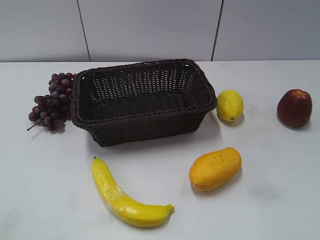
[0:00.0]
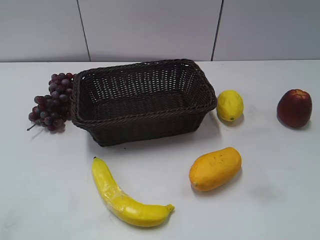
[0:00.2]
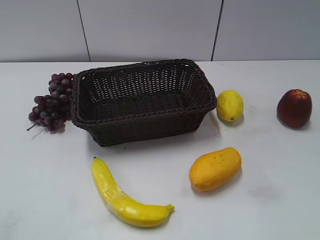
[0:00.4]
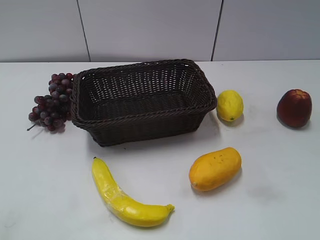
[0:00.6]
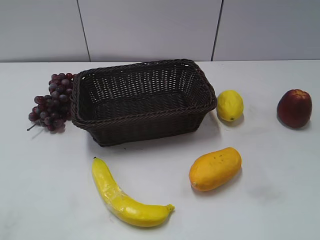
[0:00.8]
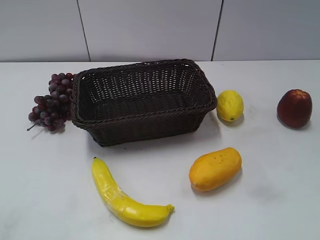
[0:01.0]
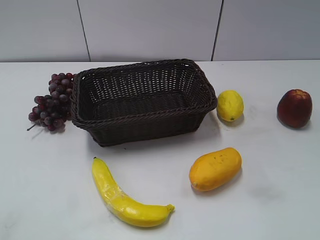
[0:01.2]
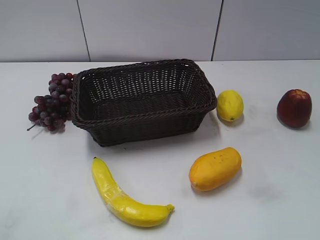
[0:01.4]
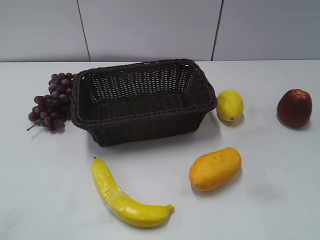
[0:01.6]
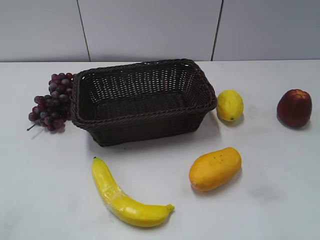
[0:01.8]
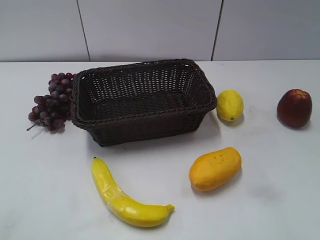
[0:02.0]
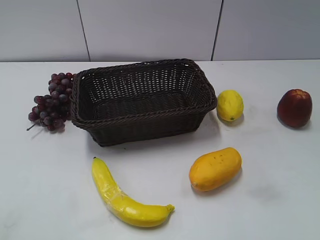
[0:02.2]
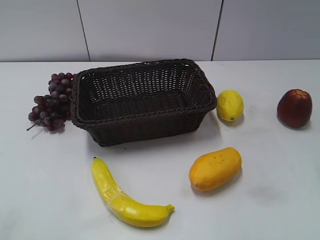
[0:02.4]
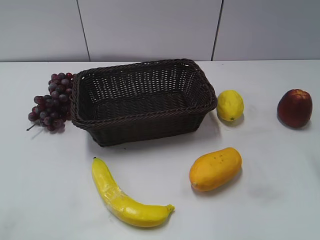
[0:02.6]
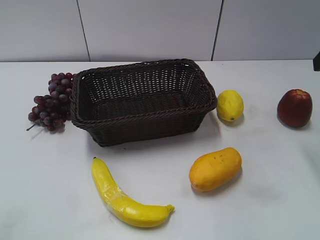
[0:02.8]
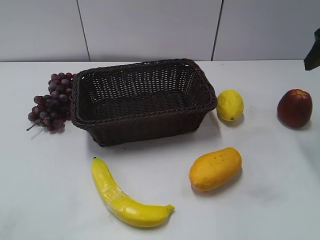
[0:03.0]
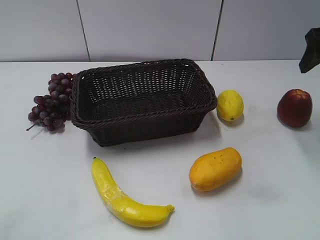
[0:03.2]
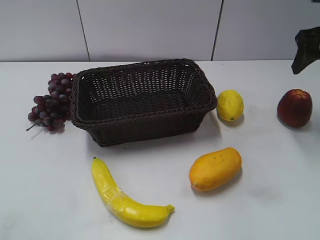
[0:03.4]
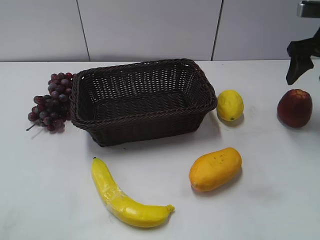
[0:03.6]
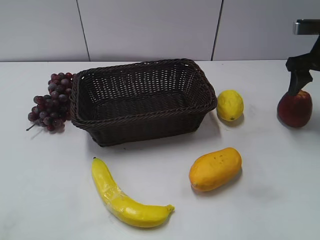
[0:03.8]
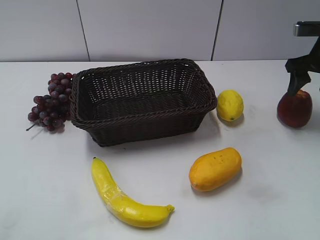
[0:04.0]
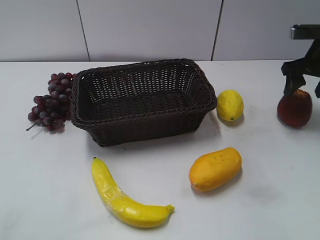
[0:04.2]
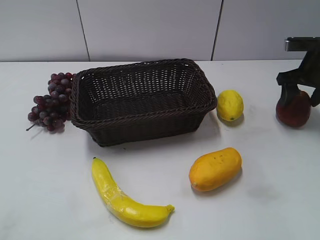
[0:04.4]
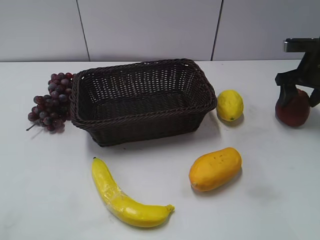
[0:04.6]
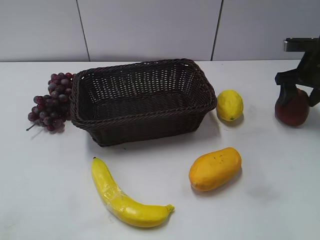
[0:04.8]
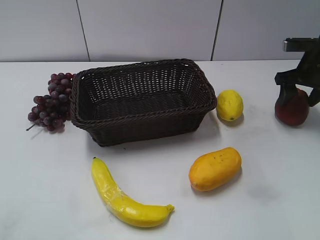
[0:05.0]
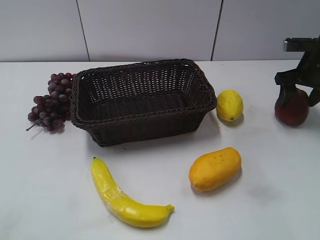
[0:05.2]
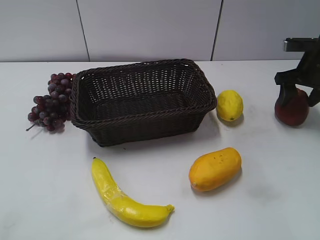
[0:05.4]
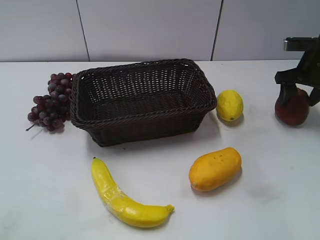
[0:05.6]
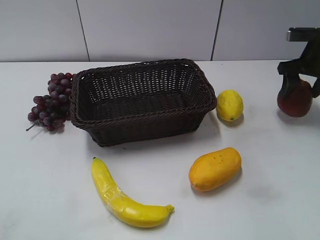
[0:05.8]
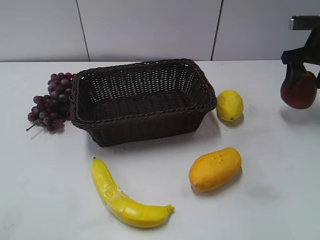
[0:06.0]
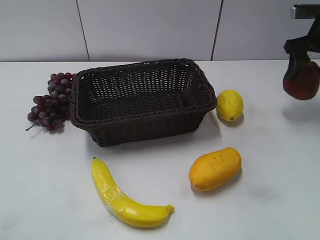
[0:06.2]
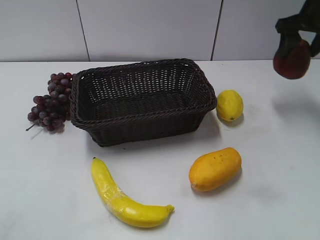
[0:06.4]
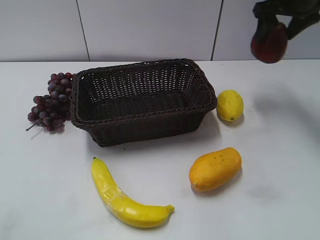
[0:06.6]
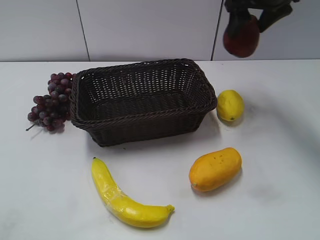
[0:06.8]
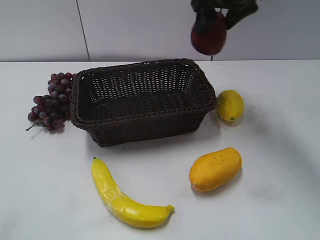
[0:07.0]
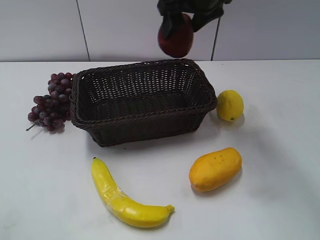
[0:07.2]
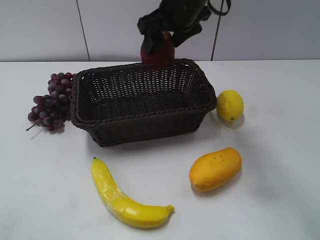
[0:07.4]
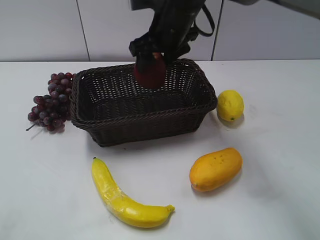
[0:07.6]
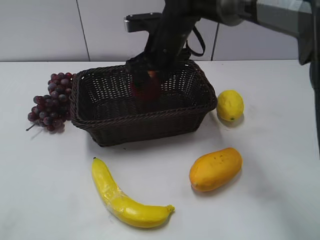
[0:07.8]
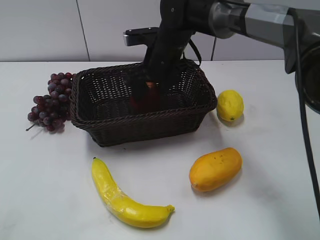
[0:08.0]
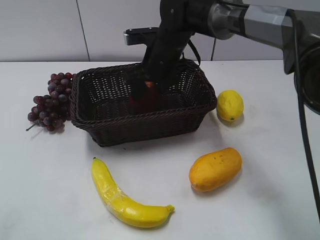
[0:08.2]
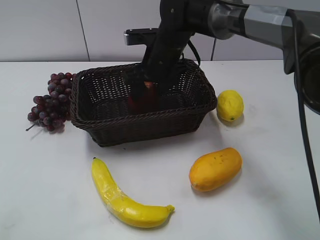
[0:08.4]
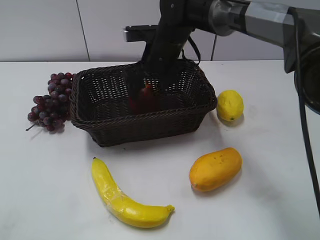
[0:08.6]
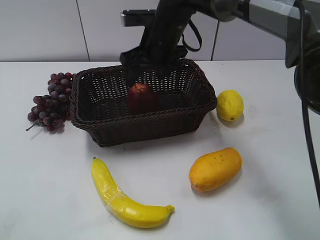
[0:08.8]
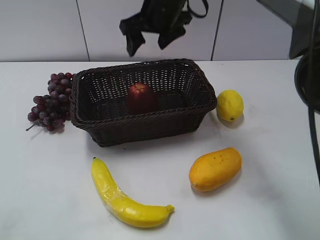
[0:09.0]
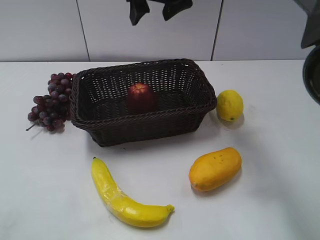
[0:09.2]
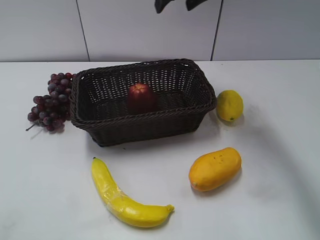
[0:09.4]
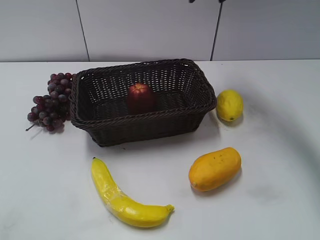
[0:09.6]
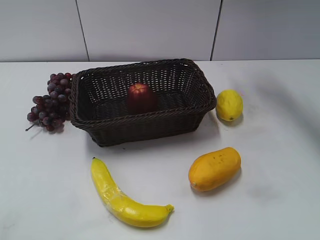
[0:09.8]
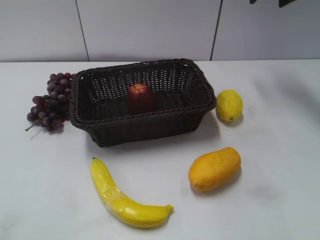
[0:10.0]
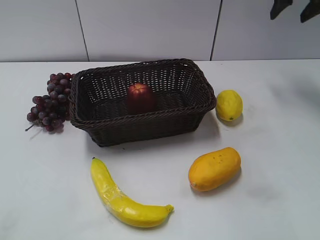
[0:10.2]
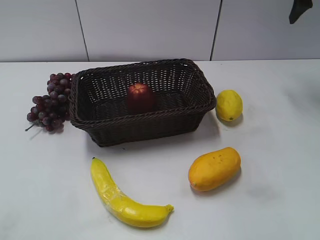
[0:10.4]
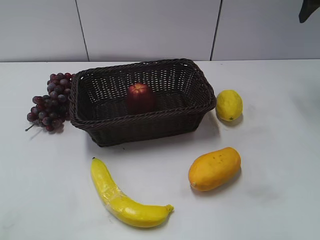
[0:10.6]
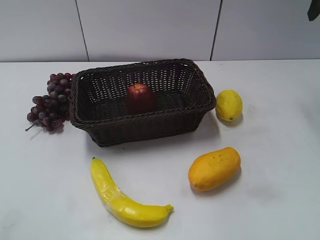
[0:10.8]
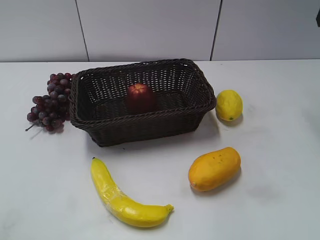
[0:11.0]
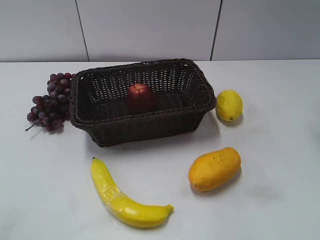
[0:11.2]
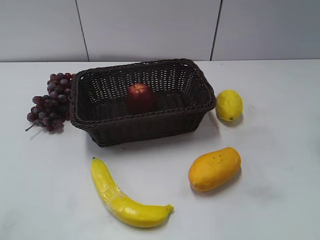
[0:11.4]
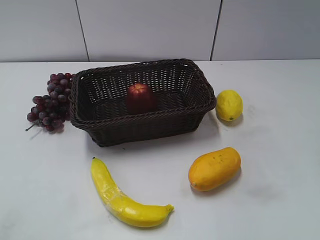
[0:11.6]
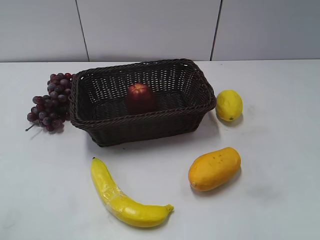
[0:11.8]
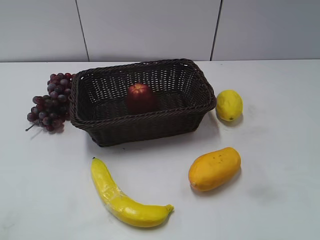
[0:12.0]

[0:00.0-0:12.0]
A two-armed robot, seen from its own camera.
Step, 0:02.8 to 0:04.8: Grasp the apple with right gripper.
Step, 0:05.0 to 0:08.4: Place the apple in the basket with right gripper.
0:01.6 to 0:03.0: The right gripper heads forward, covering roughly 30 cm, and opens its fingers.
0:03.0 to 0:04.4: The right gripper travels downward and forward by some 15 cm.
0:04.4 to 0:06.0: There are only small adjustments of the grippers.
0:06.0 to 0:07.6: The right gripper heads to the left, covering approximately 30 cm.
0:07.6 to 0:09.0: The right gripper opens its fingers.
0:09.0 to 0:10.4: The right gripper shifts approximately 30 cm to the right, and closes its fingers.
0:10.4 to 0:12.0: The right gripper goes some 25 cm backward.

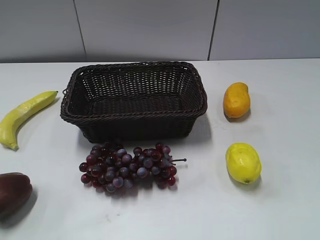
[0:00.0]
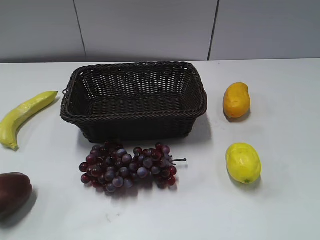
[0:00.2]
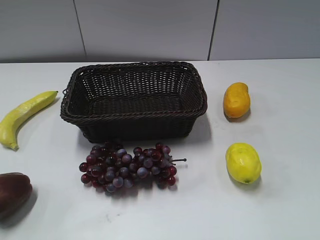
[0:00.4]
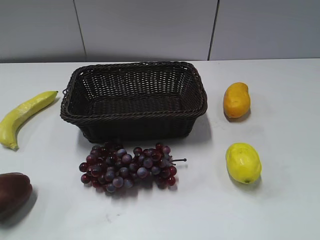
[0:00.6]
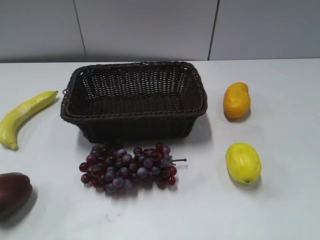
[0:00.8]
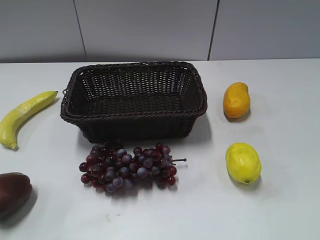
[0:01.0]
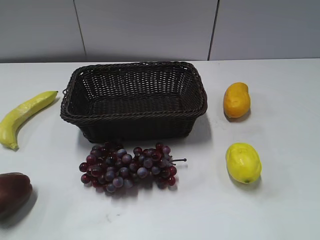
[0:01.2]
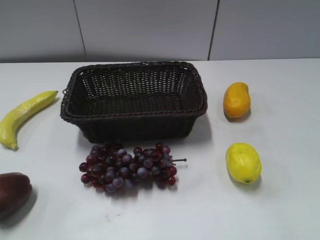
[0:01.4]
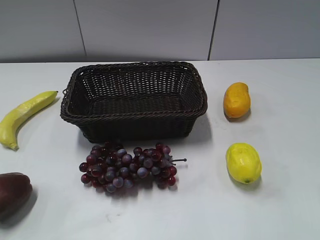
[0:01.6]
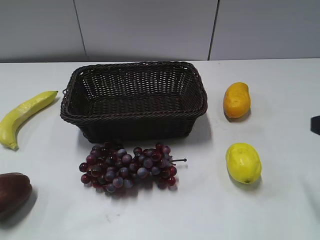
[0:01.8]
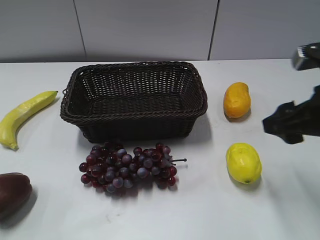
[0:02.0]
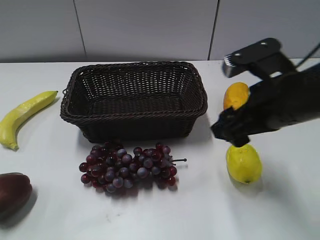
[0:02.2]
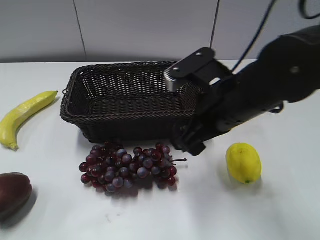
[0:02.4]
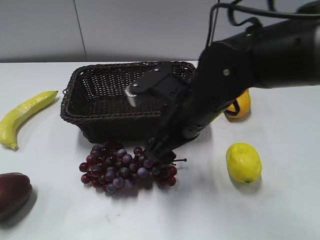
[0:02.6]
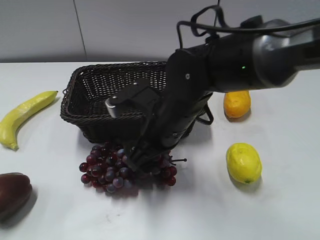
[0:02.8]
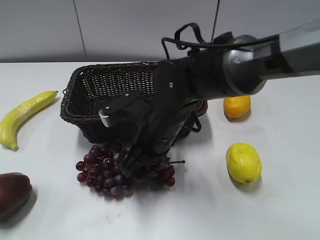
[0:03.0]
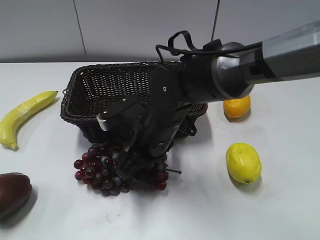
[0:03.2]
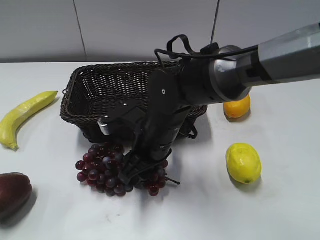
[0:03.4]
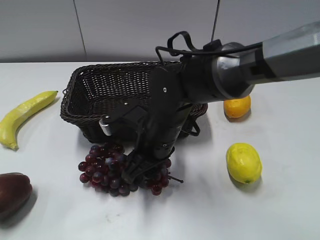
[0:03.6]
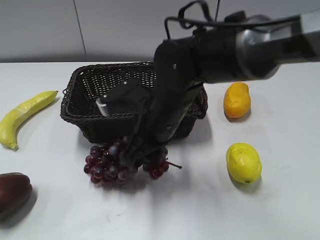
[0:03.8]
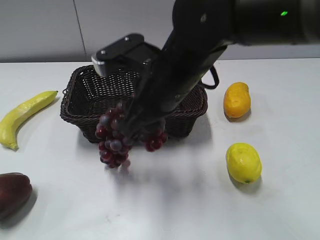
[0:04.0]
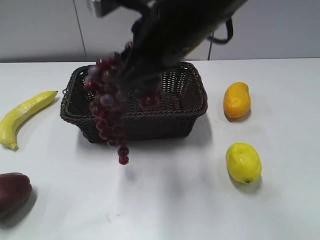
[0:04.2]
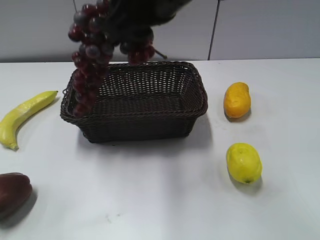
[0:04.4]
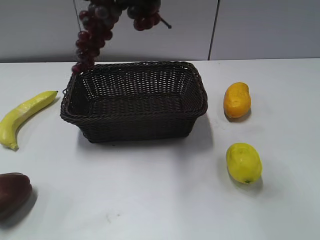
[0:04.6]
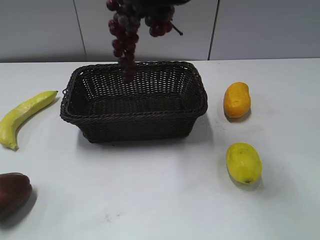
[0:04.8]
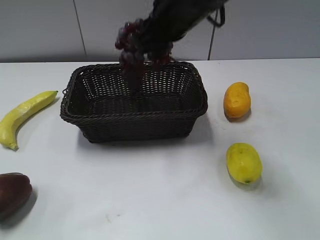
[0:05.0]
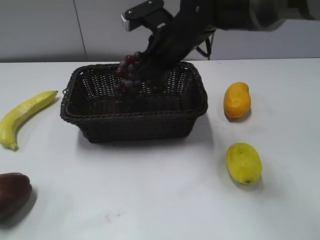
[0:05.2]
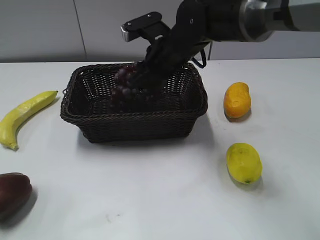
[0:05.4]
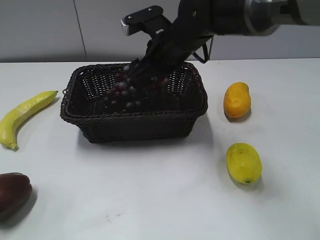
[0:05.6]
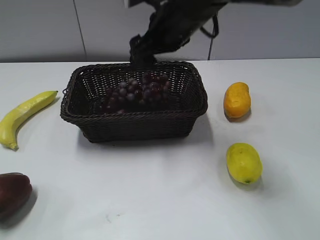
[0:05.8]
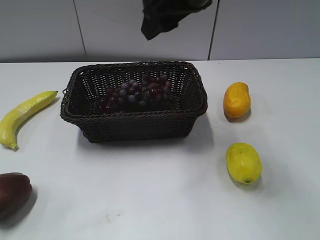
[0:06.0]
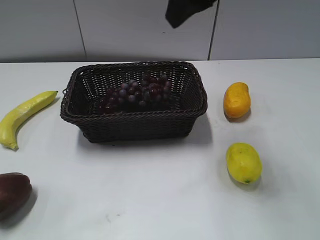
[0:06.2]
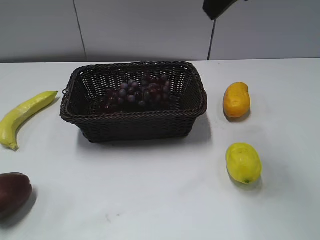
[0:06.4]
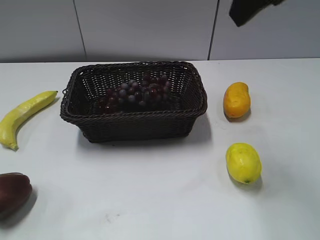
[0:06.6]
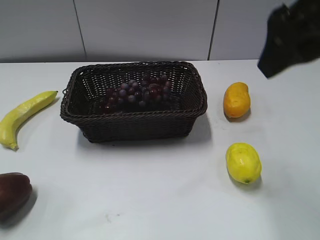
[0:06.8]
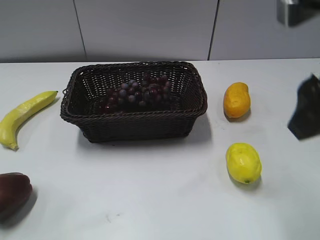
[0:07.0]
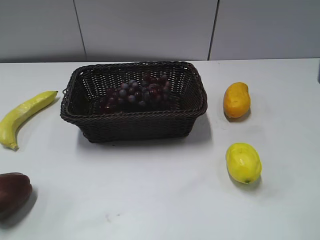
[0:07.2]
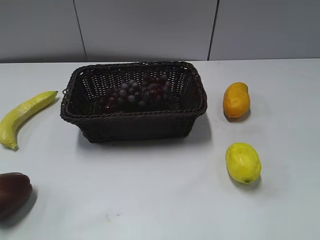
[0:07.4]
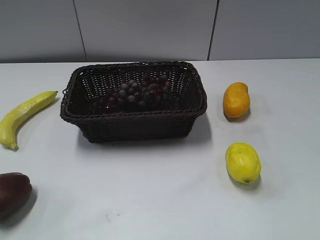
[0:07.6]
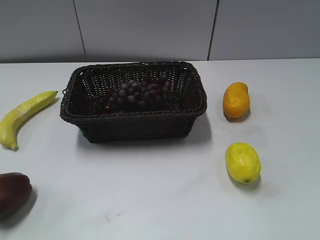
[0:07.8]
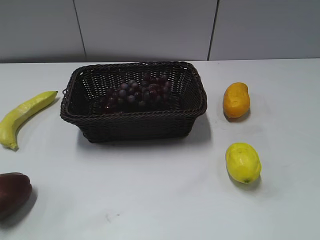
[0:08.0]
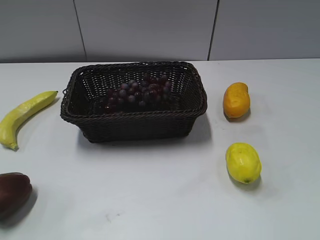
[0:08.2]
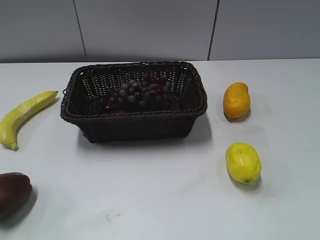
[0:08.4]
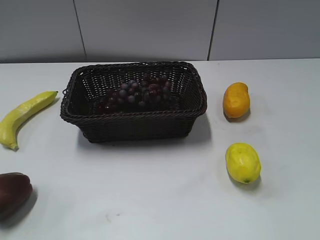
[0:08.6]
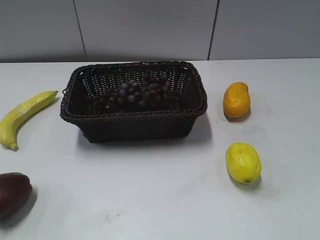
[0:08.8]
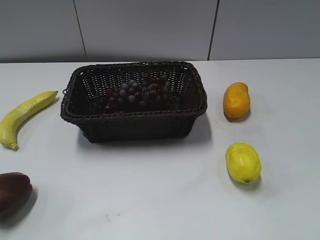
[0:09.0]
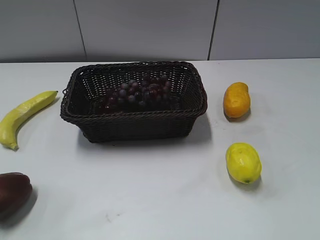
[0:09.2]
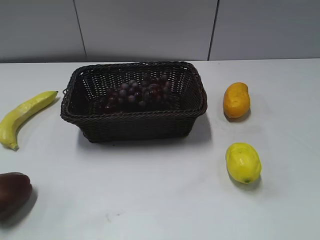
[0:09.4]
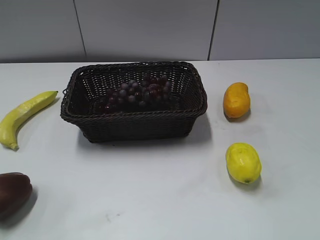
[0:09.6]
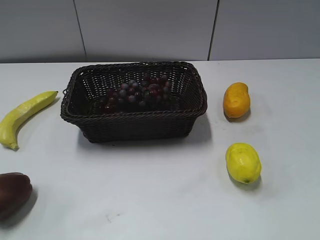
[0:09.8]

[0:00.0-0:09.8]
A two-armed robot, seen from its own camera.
Step, 0:01.6 to 0:03.8: Grasp the grape with right gripper.
Step, 0:04.0 to 0:05.6: Place the grape in the basket with right gripper.
0:01.4 to 0:02.8: The right gripper goes roughly 35 cm to the left, forward and downward, and opens.
0:02.8 to 0:04.2: The right gripper goes roughly 15 cm upward, and closes up.
0:04.2 to 0:05.6: The right gripper travels forward and downward by some 15 cm, and opens its fingers.
0:05.6 to 0:07.0: The right gripper travels backward, to the right and upward by roughly 30 cm.
0:07.0 to 0:08.4: The right gripper travels backward and to the right by about 20 cm.
